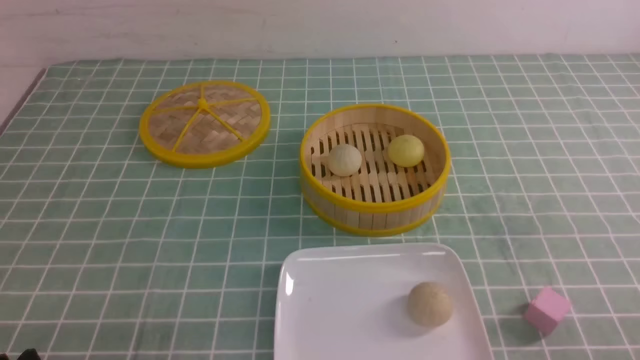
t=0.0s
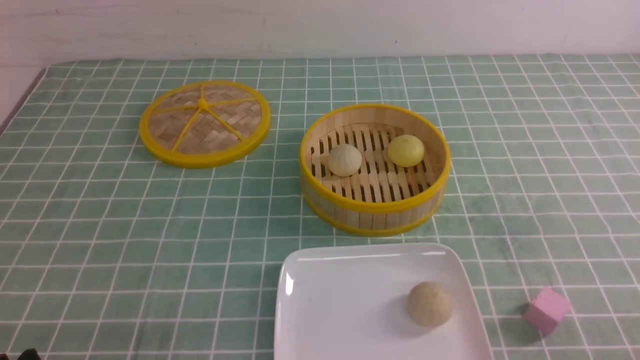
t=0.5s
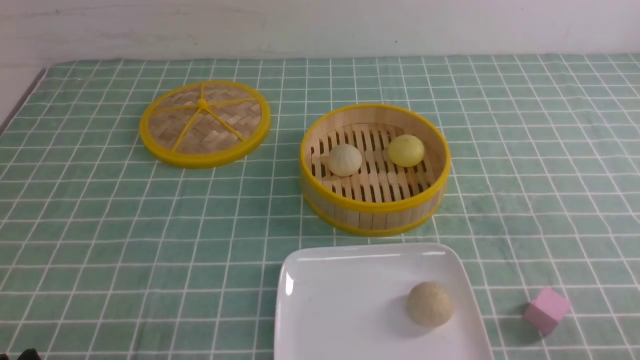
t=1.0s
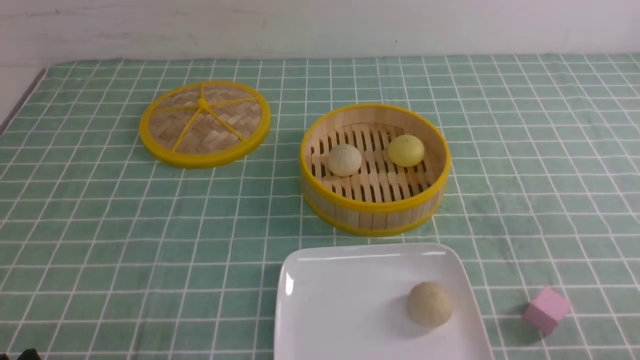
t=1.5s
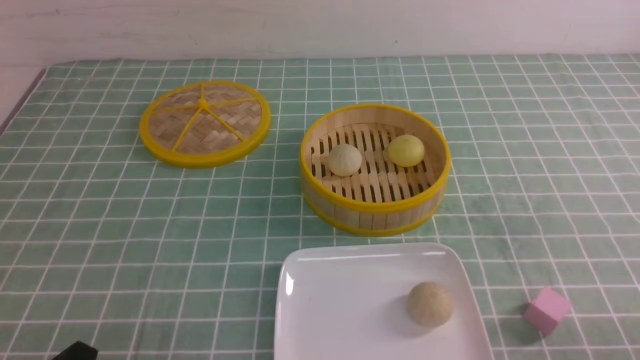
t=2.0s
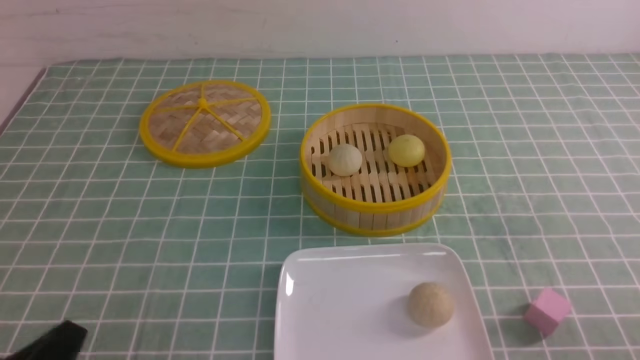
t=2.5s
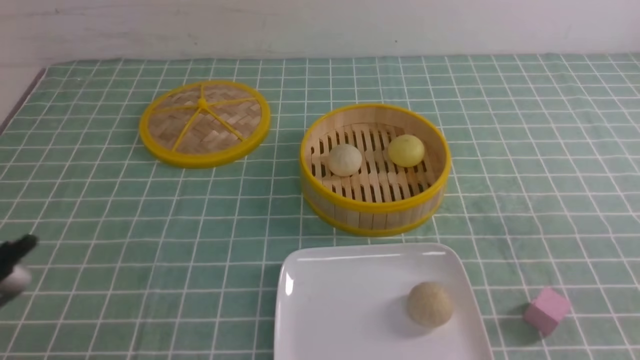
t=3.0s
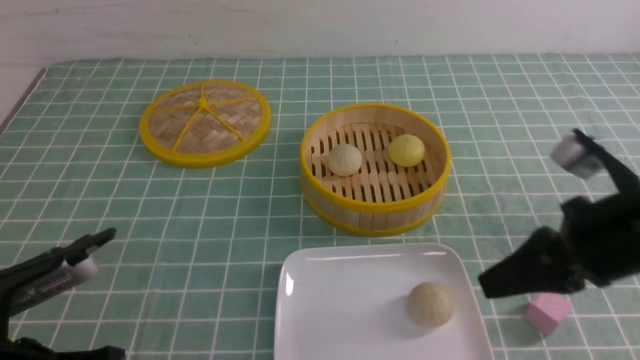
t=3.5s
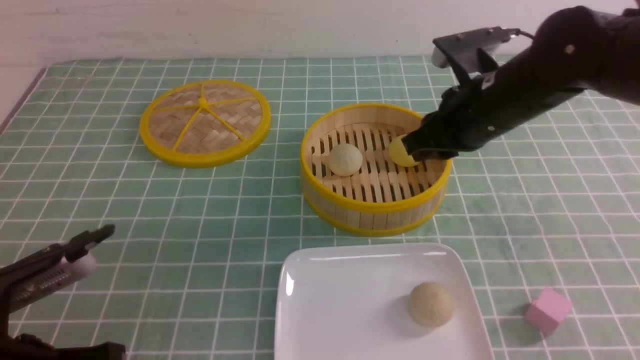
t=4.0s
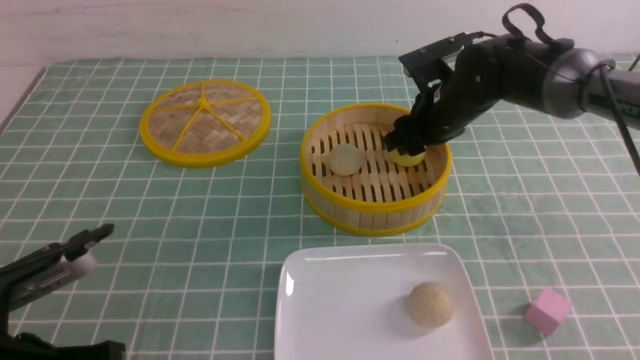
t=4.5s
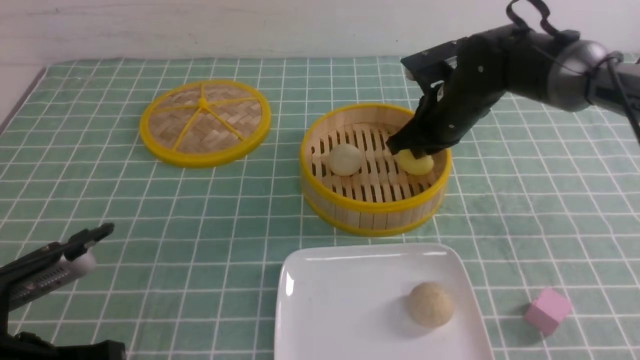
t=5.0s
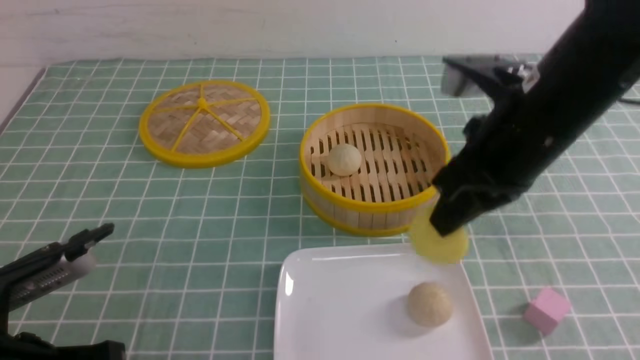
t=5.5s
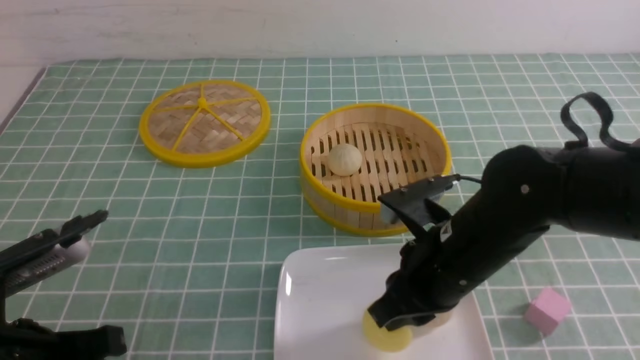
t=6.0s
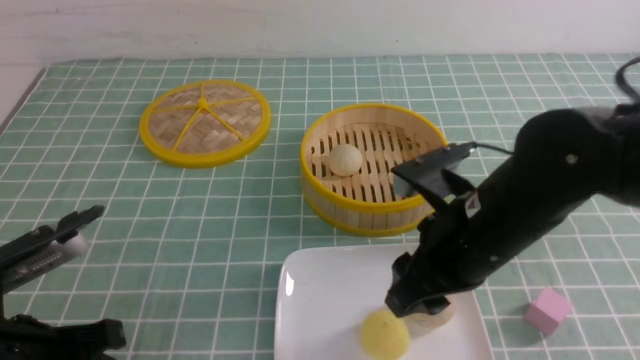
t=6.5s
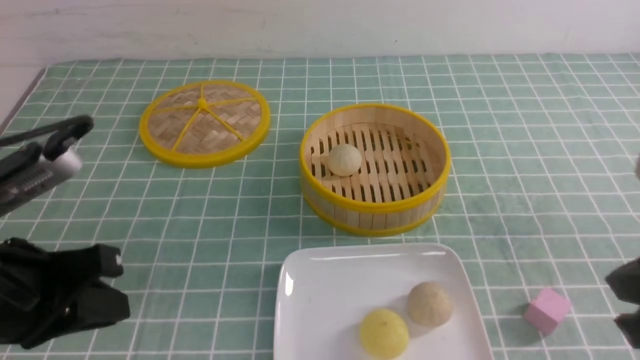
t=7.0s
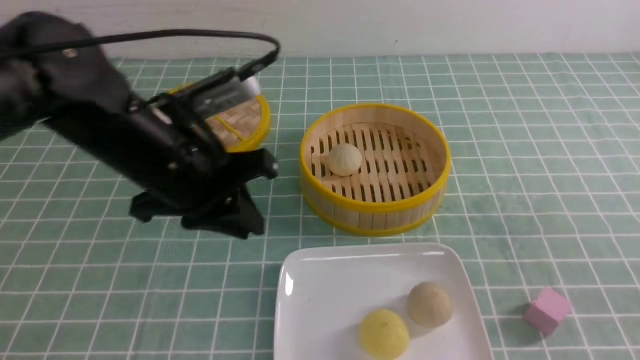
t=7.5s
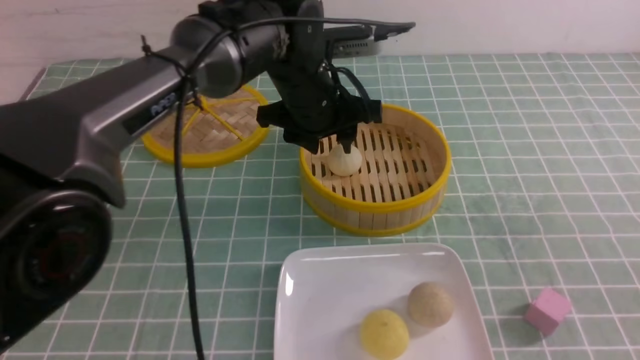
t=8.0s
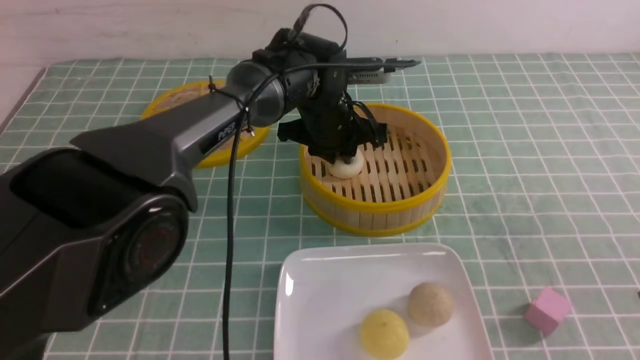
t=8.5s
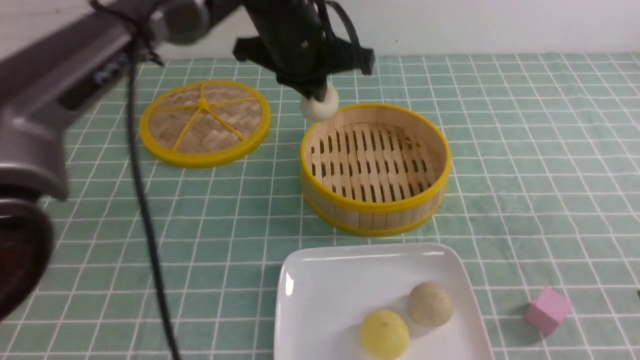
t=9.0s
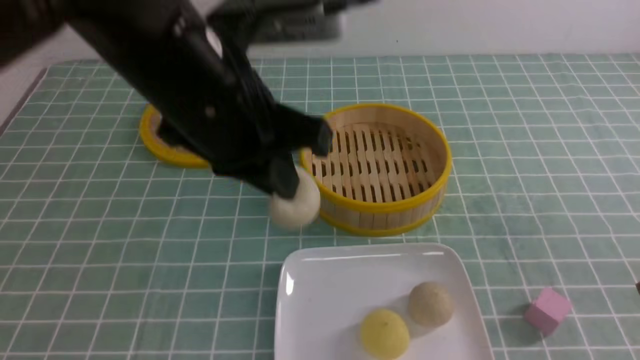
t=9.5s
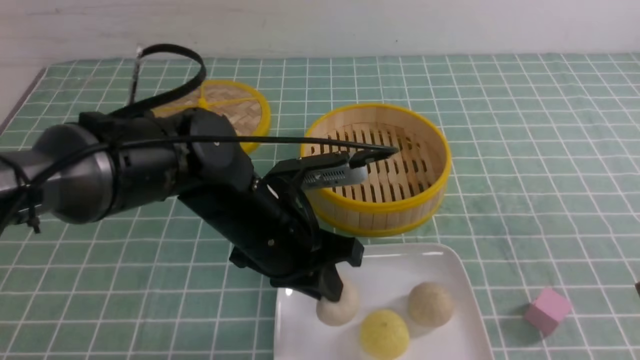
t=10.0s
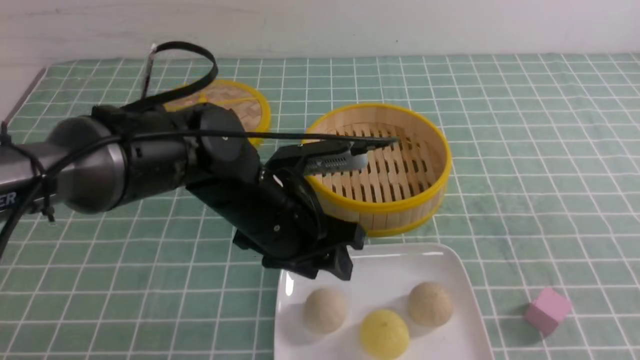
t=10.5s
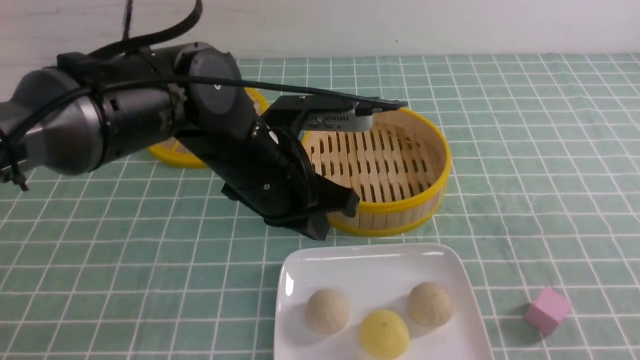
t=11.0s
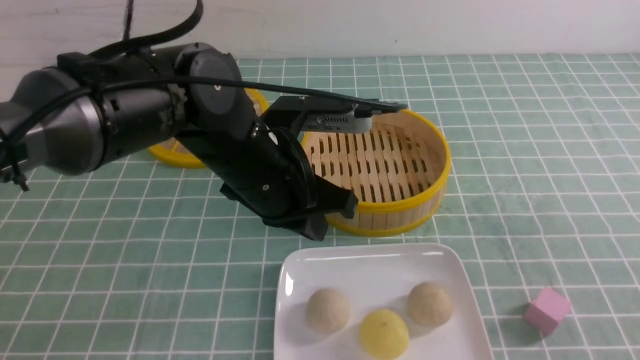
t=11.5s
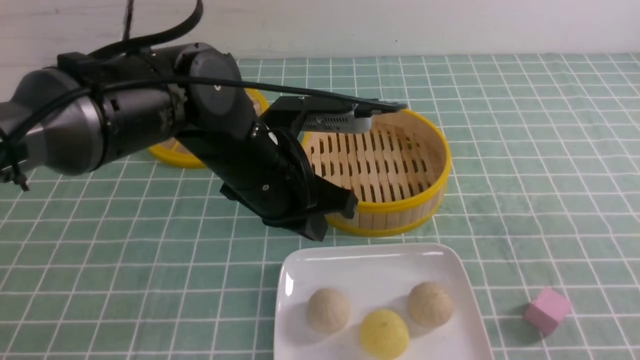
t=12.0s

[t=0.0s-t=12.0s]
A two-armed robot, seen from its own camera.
Step, t=0.0s to t=5.0s: use the right arm to grab the steamed stuffed bun that is closest to it.
Step, t=5.5s to t=6.0s: use the right arm to put the steamed stuffed bun into the plate.
Step, t=6.5s to t=8.5s: use the left arm to grab the steamed stuffed bun that is closest to it.
Step, t=9.0s to t=10.0s: use the left arm to put the steamed stuffed bun into the plate.
t=2.0s to t=4.0s: The right gripper shifts roughly 35 cm forward and to the left, and closes, then reopens. The left gripper heads forward and upward, covering some 10 cm, and closes its fingers.
t=4.0s to t=6.0s: The right gripper is displaced backward and downward by roughly 15 cm, and closes, then opens again.
t=6.0s to t=8.0s: The left gripper heads forward and to the right, covering roughly 35 cm, and opens its fingers; the right gripper is displaced to the right, backward and upward by about 25 cm, and closes its fingers.
t=8.0s to t=10.0s: The left gripper moves backward, roughly 15 cm, and closes up.
t=10.0s to t=12.0s: The left gripper closes up. The right gripper goes about 5 cm backward.

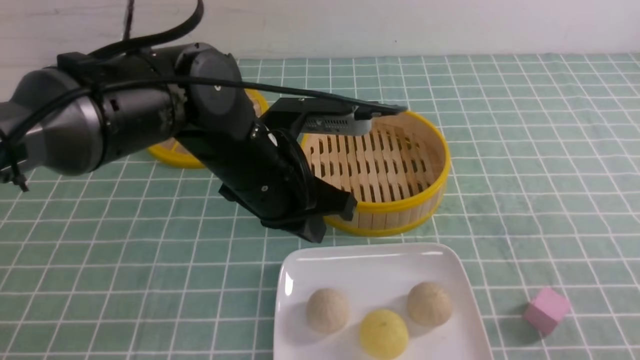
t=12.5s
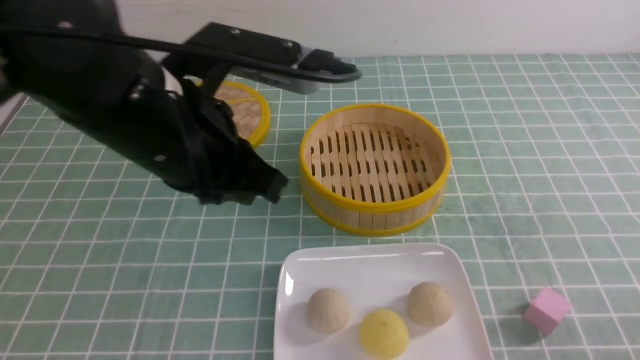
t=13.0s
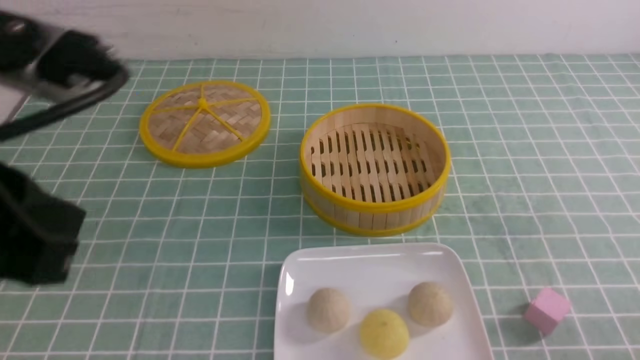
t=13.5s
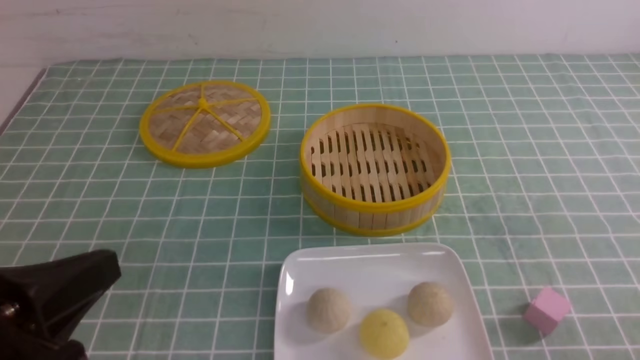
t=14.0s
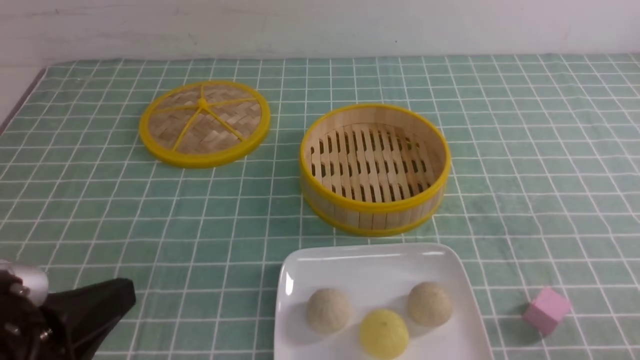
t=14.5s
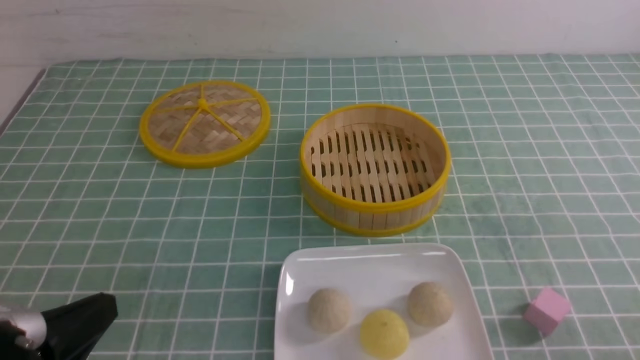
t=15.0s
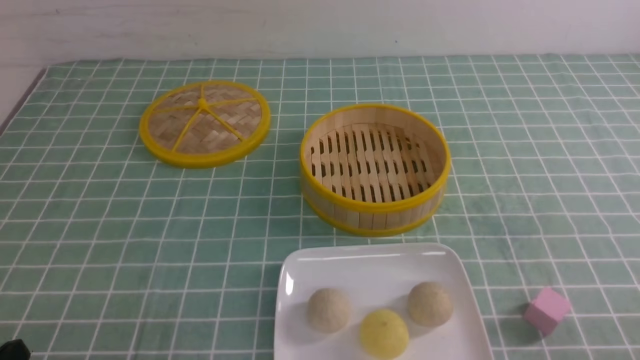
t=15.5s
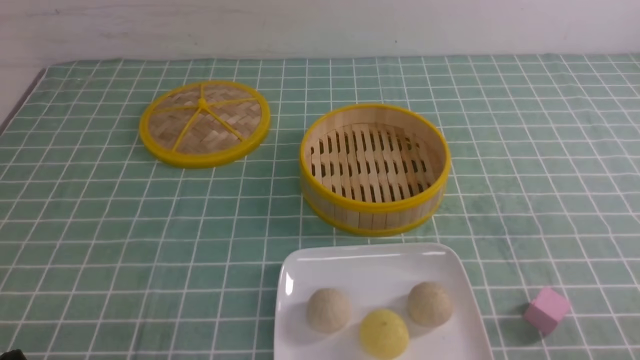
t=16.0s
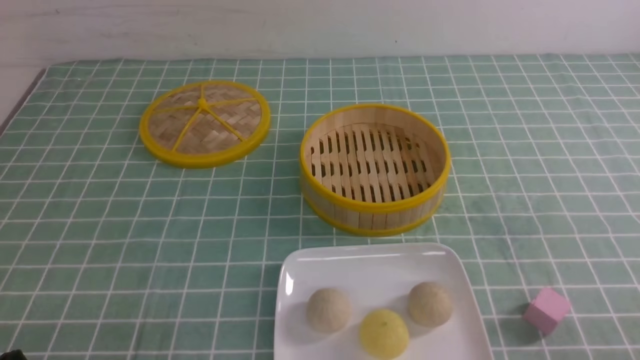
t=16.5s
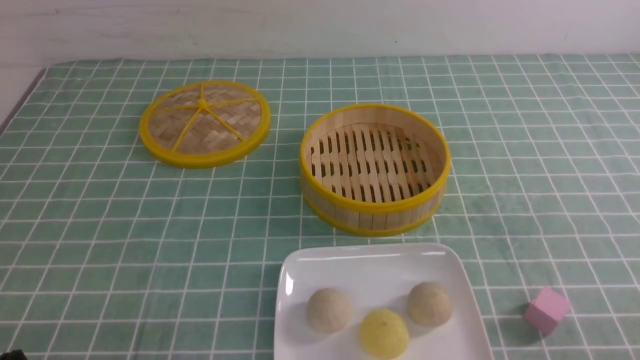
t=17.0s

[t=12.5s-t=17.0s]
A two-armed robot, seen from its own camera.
t=12.5s to t=14.5s: The left gripper travels backward and to the left by some 25 cm. The right gripper goes roughly 5 cm downward.
t=14.5s to t=17.0s: The left gripper shifts some 10 cm downward and to the left.

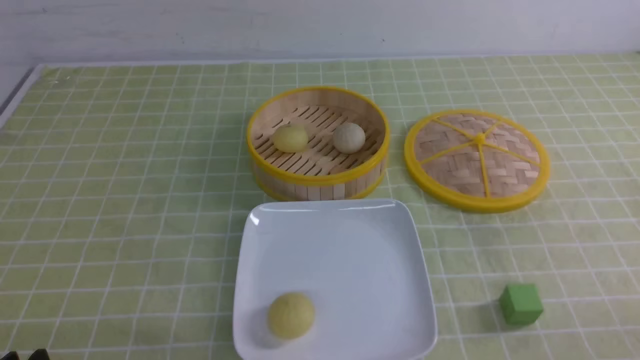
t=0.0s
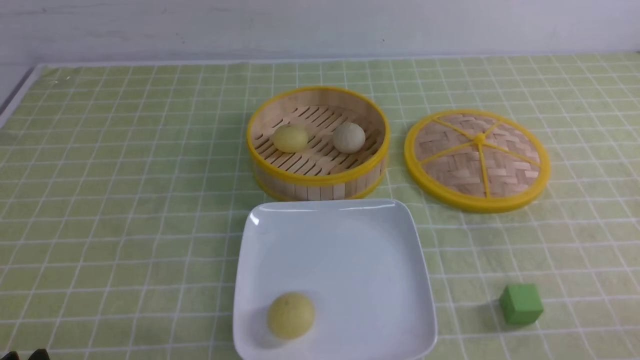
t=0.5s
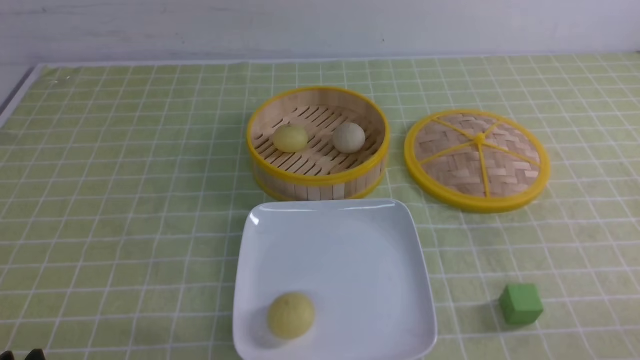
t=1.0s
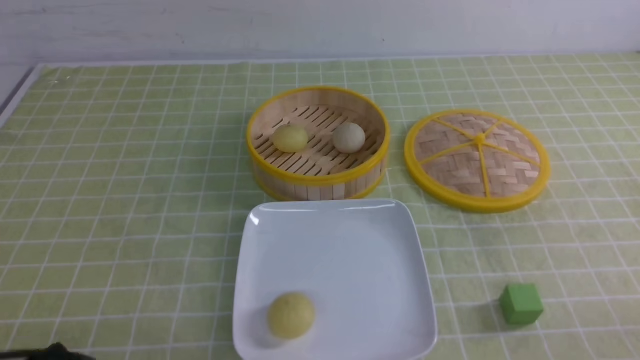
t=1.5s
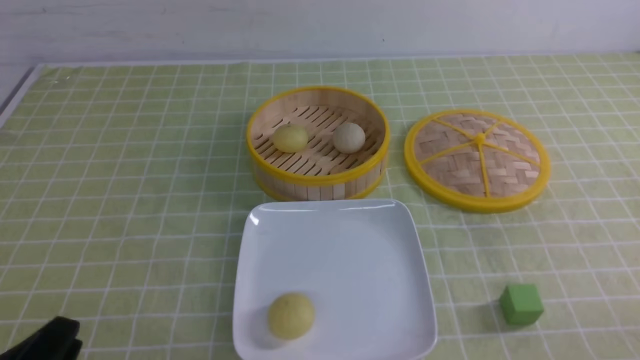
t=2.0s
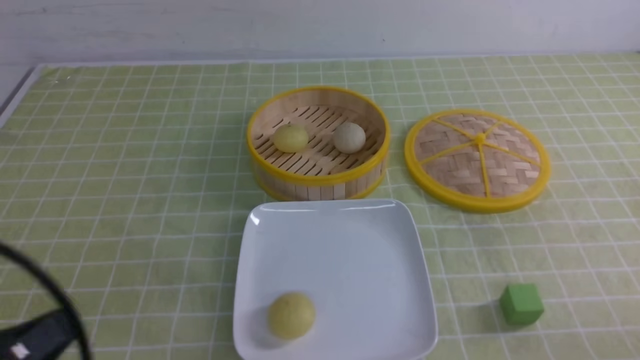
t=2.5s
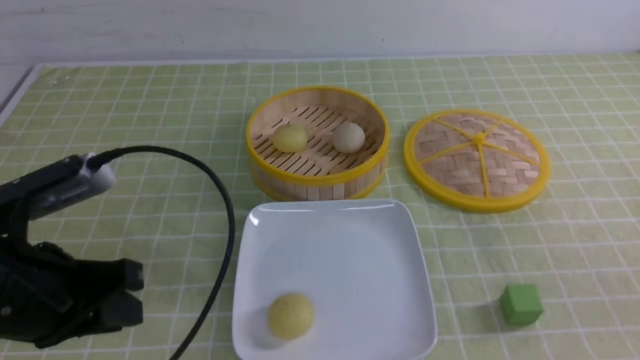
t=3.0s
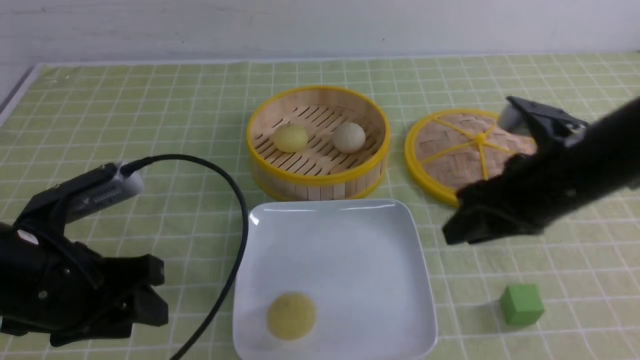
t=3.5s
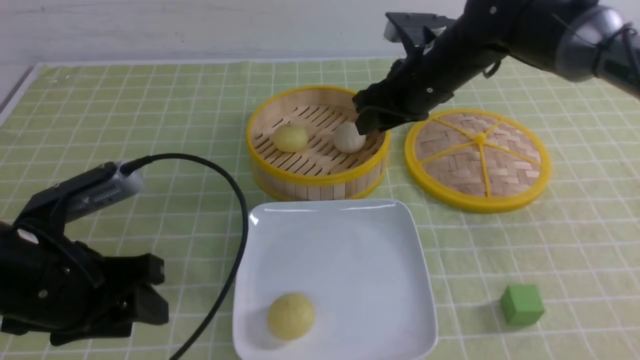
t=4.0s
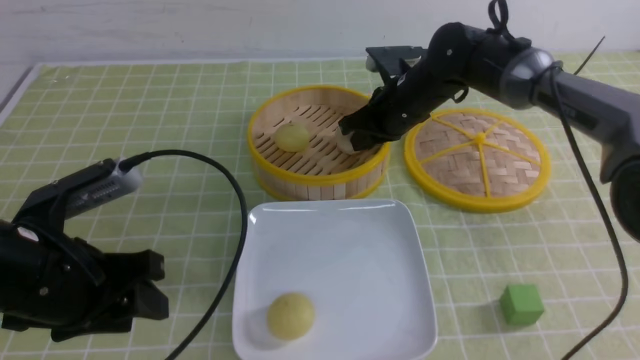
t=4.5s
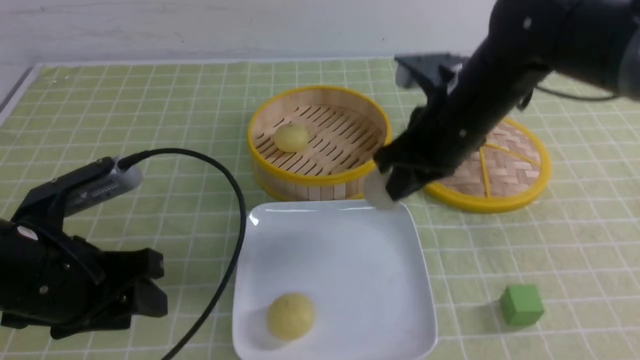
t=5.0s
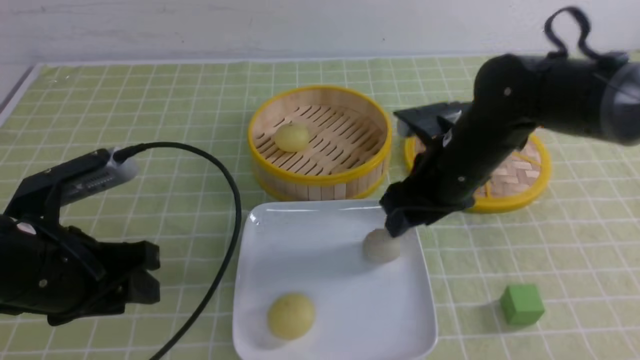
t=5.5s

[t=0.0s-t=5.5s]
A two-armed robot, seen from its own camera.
Step, t=0.0s to t=4.5s: use the right arm to grab the steamed stuffed bun that is closest to it.
t=2.0s to t=3.5s: The right gripper shifts some 30 cm forward, to the left and upward, and closes and opens again. The left gripper travels forward by some 15 cm, and opens up.
t=3.5s to t=5.5s: The right gripper moves to the left, about 5 cm, goes forward and returns, approximately 20 cm each way, and closes, then opens again.
